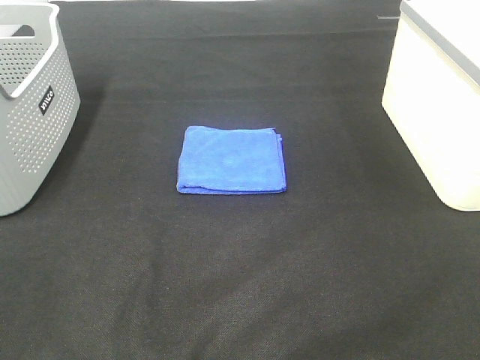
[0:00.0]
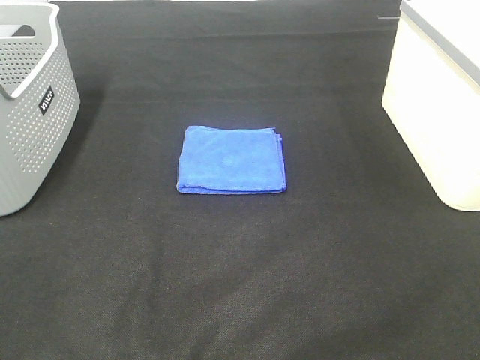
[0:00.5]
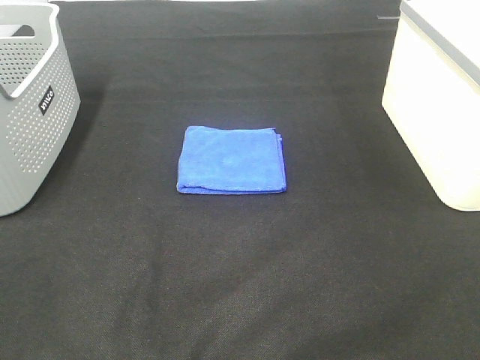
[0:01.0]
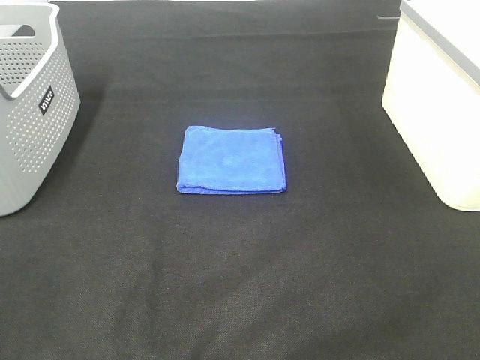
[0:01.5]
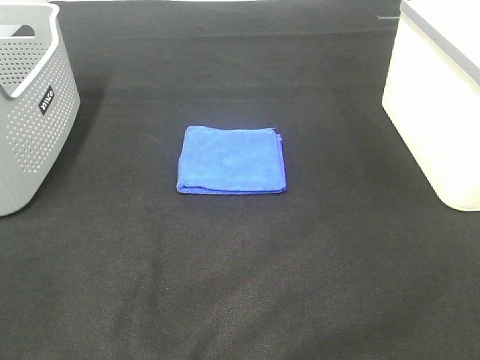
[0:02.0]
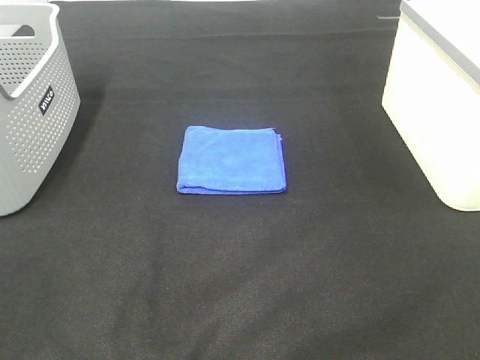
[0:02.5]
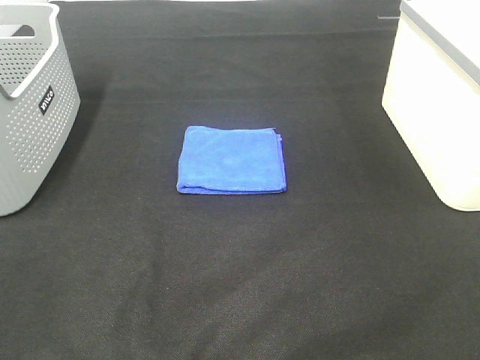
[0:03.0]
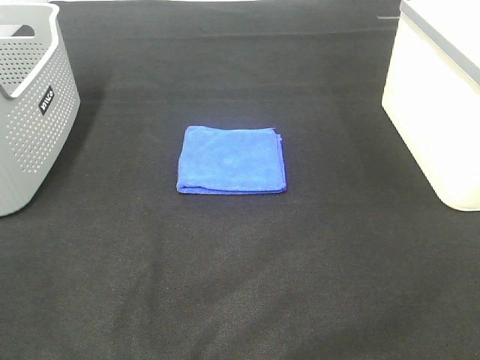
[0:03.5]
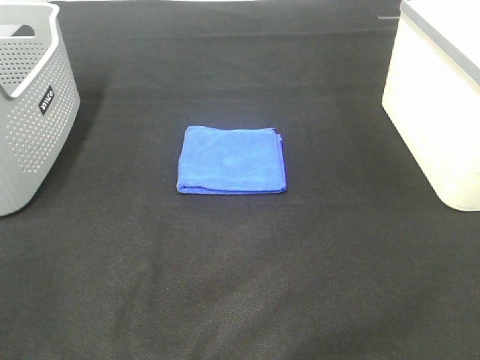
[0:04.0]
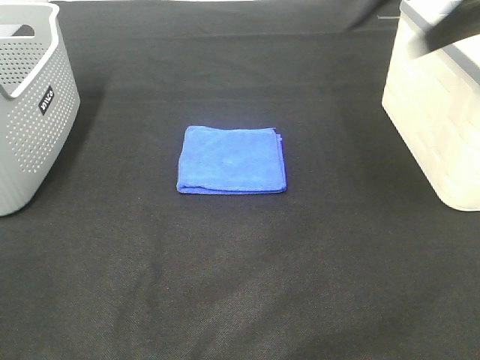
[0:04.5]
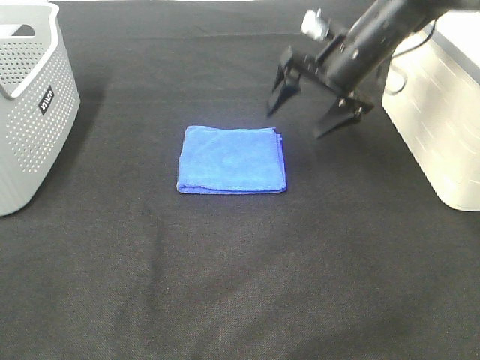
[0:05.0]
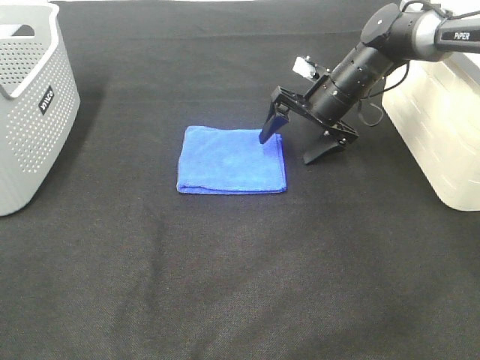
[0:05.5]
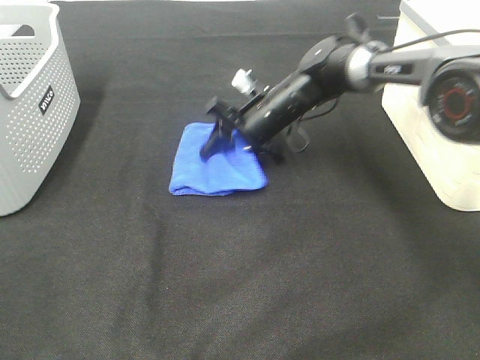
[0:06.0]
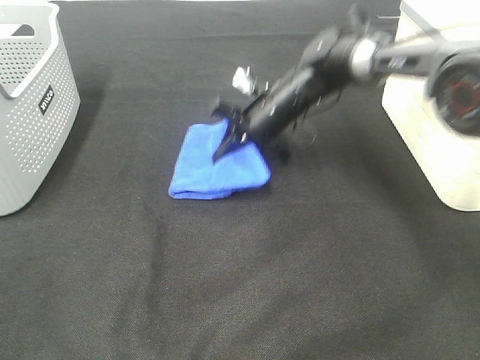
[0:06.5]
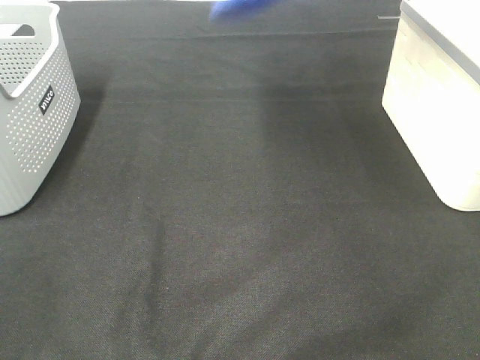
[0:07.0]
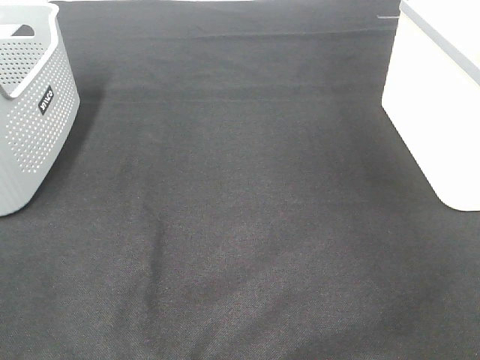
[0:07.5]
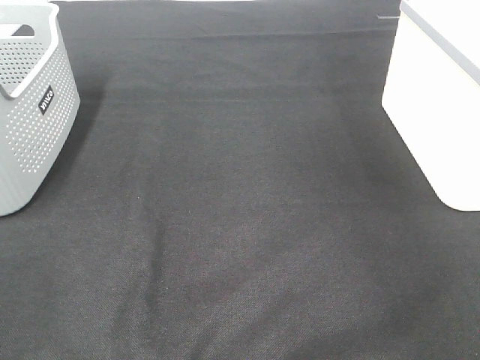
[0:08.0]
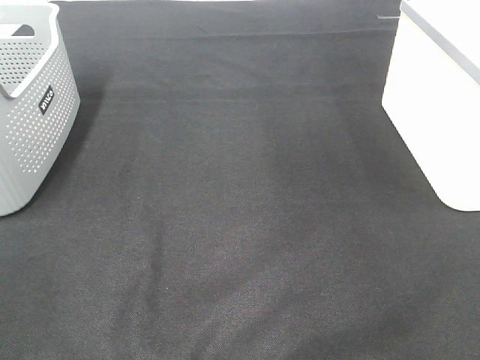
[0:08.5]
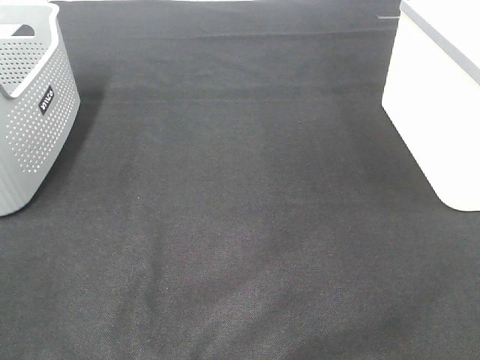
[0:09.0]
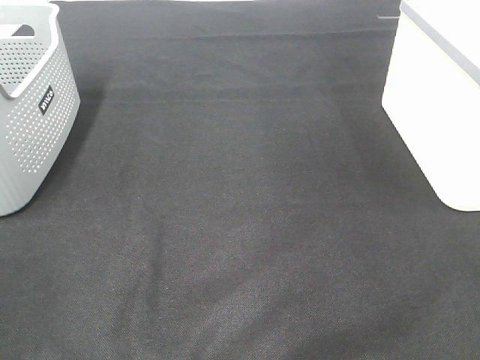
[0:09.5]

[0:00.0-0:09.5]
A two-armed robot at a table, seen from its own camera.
Step, 0:00.0 to 0:06.0: Right hand: grab the folded blue towel.
Step, 0:06.5 to 0:08.0: Right hand: place the blue towel in right basket.
0:00.0 to 0:02.0: The two grippers keep their place.
0:04.0 to 0:05.5: The right gripper goes some 40 cm forward, downward and to the left.
0:05.5 to 0:07.5: The right gripper goes approximately 40 cm upward and to the right, and closes.

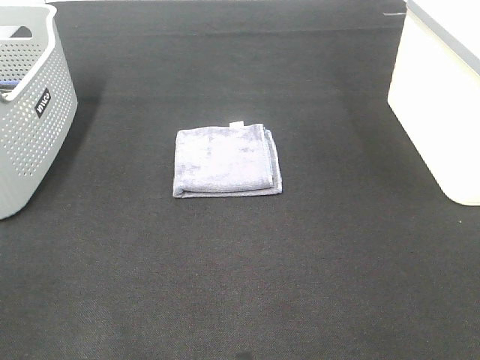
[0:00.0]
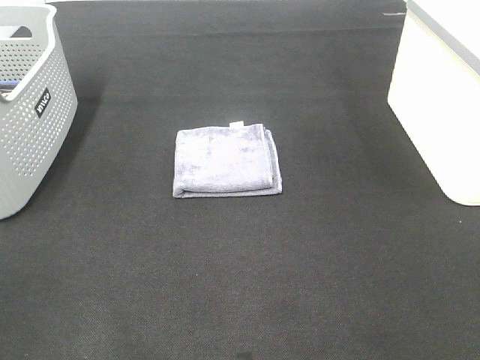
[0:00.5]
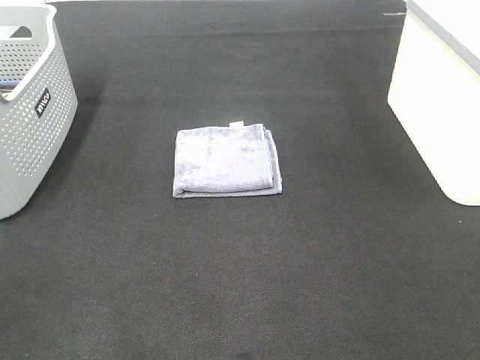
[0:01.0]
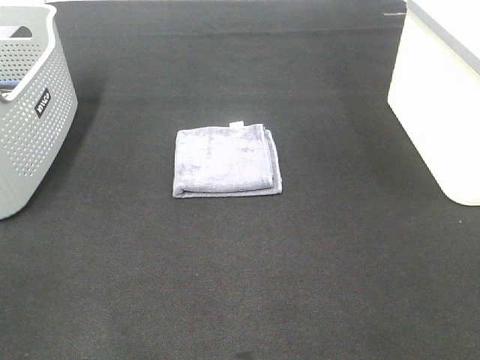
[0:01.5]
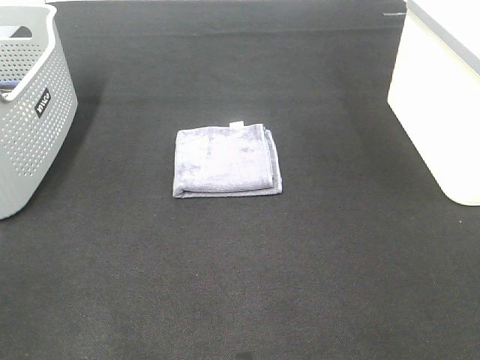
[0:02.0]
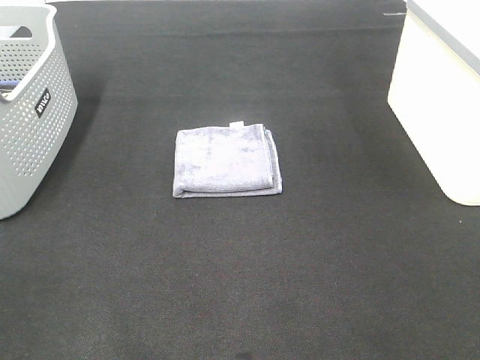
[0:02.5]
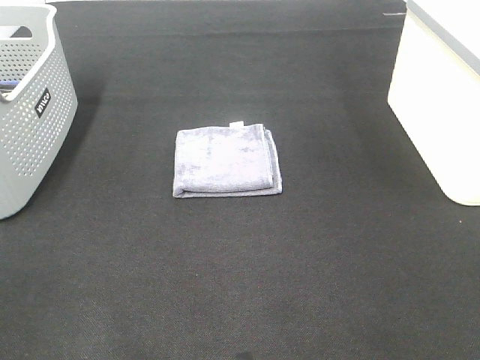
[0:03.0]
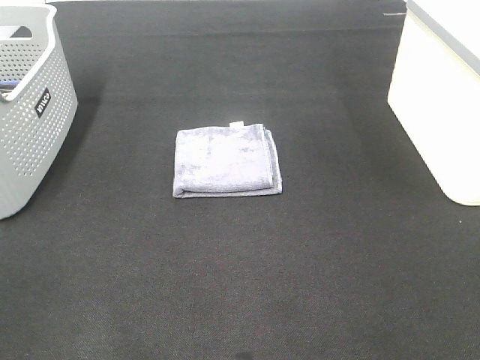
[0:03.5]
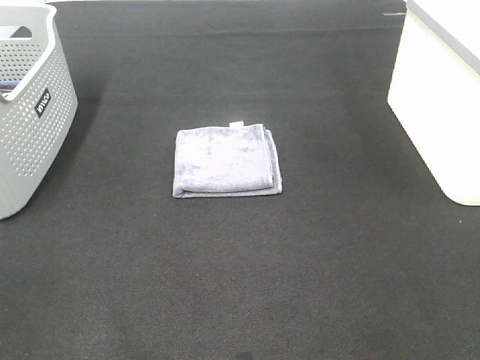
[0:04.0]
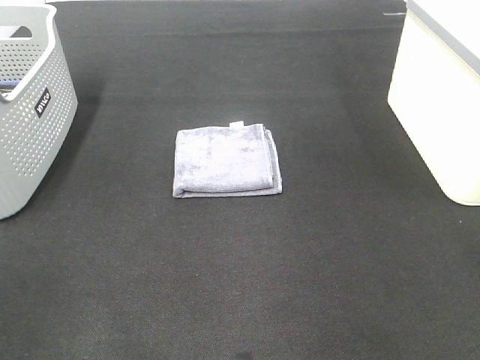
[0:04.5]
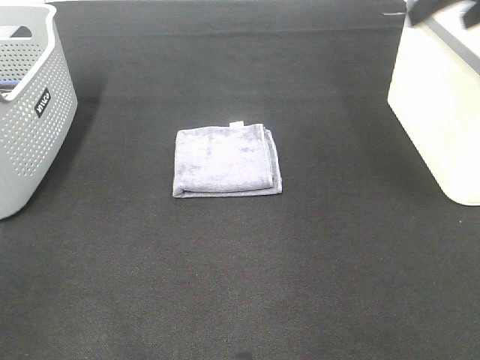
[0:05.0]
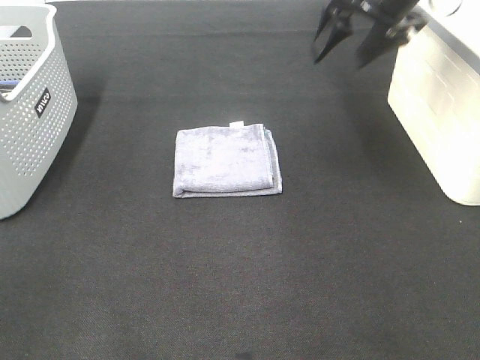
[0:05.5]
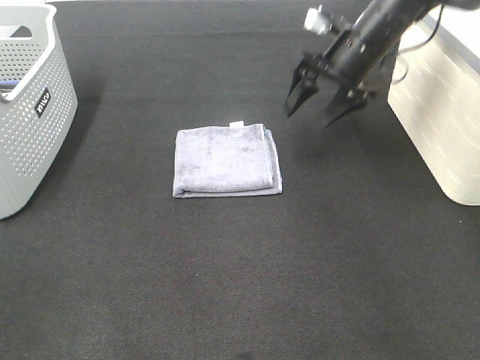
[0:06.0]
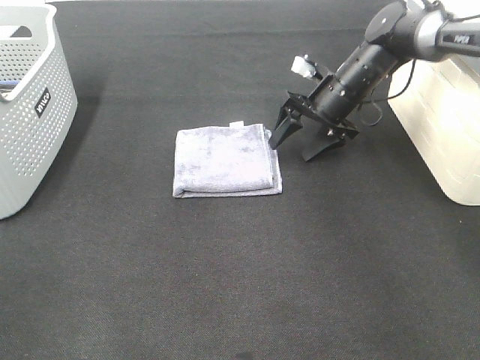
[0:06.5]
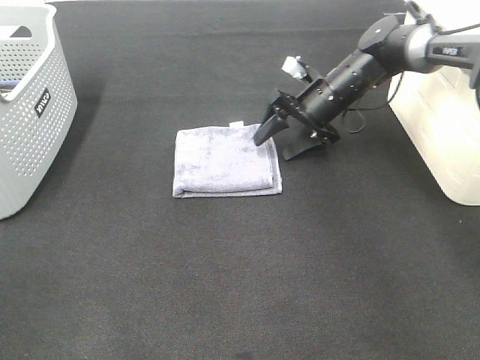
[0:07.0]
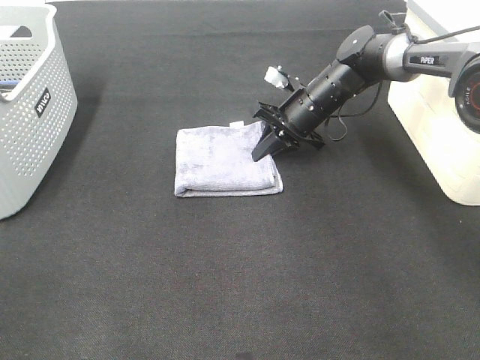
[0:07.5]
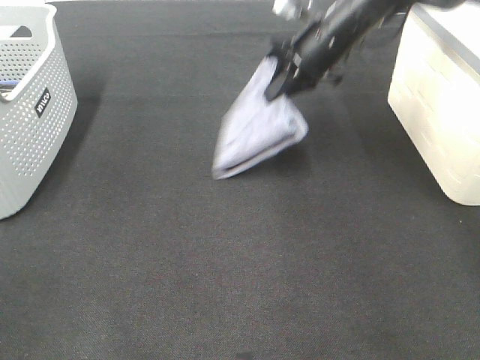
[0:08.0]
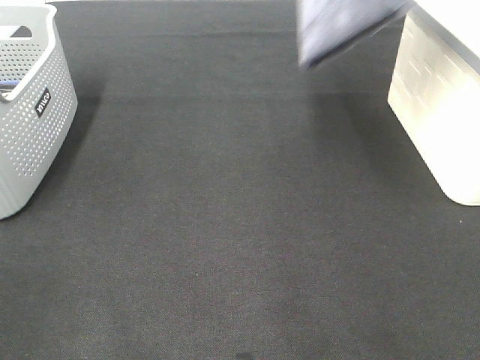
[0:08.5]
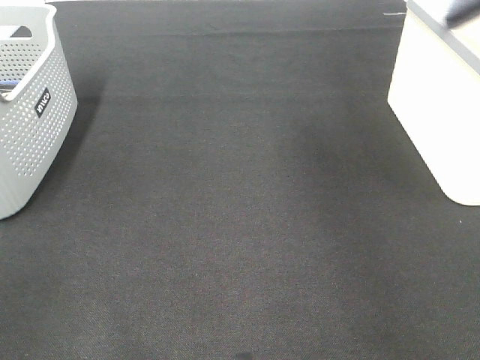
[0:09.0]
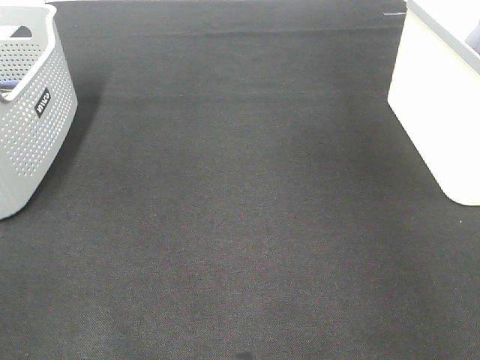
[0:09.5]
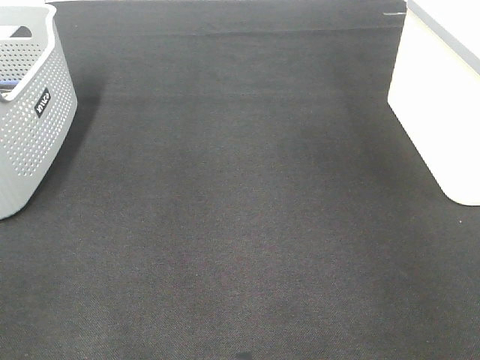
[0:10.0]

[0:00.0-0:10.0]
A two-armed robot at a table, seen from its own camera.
Step, 0:00.0 to 0:07.5: Right hand: grab the folded grey towel.
Step, 0:08.0 to 0:10.0: Right hand: place the grey towel in right basket.
0:00.0 to 0:02.0: Both grippers stay put.
0:04.0 to 0:06.0: The right gripper heads forward, covering roughly 50 cm.
0:06.0 to 0:08.0: The right gripper moves some 10 cm downward and comes back, and closes up.
0:08.0 to 0:10.0: The right gripper goes approximately 30 cm to the right, and opens its fingers.

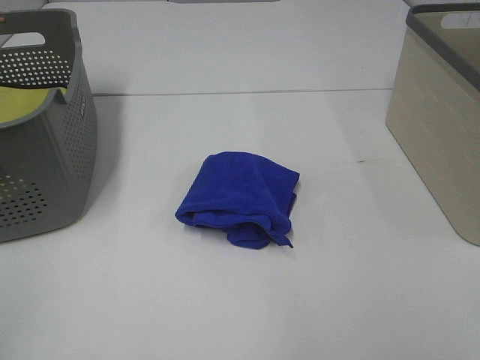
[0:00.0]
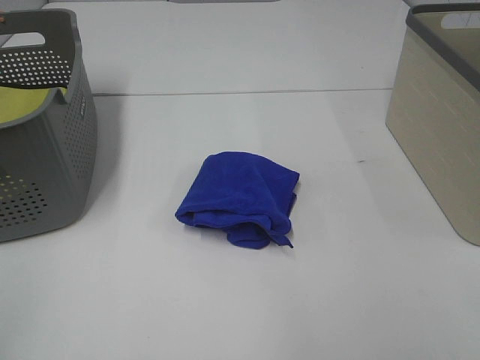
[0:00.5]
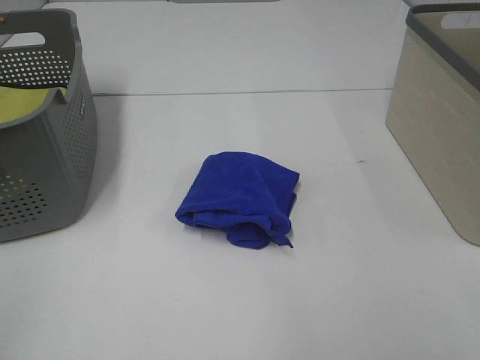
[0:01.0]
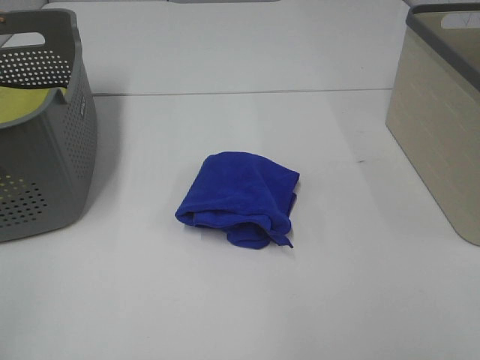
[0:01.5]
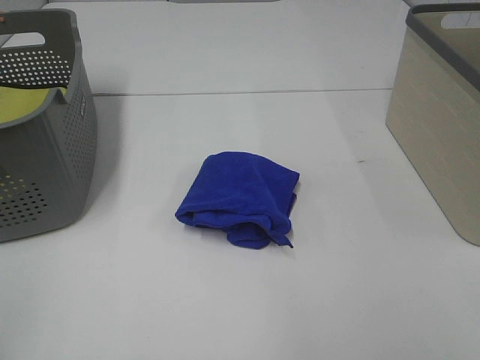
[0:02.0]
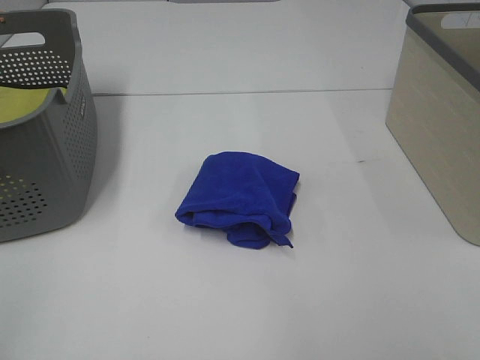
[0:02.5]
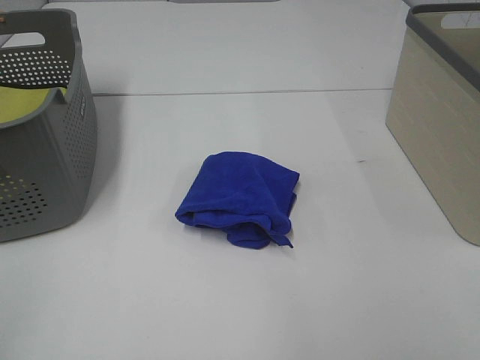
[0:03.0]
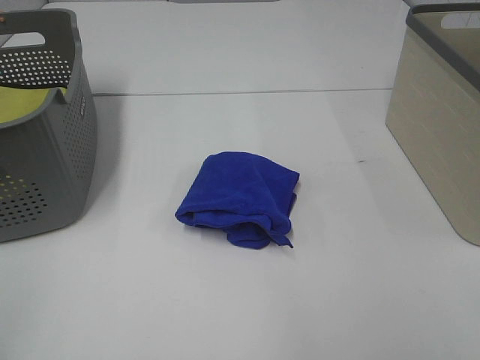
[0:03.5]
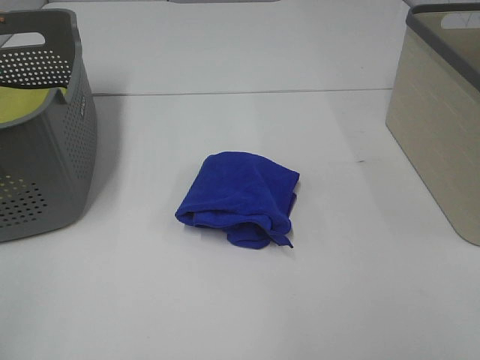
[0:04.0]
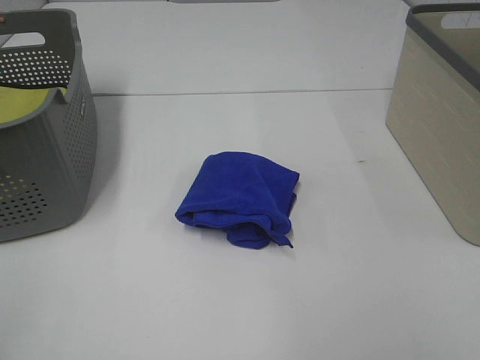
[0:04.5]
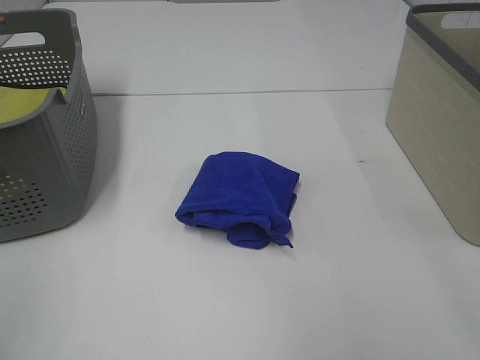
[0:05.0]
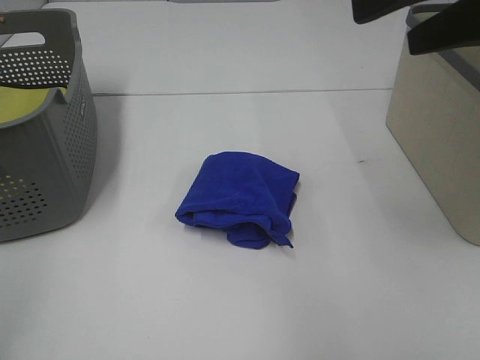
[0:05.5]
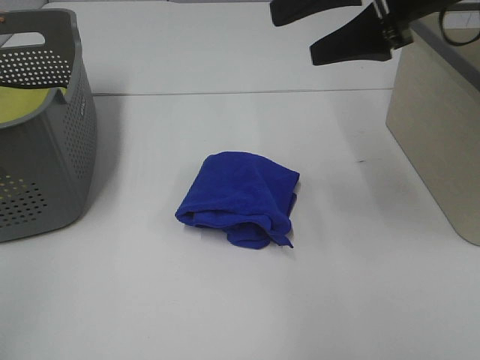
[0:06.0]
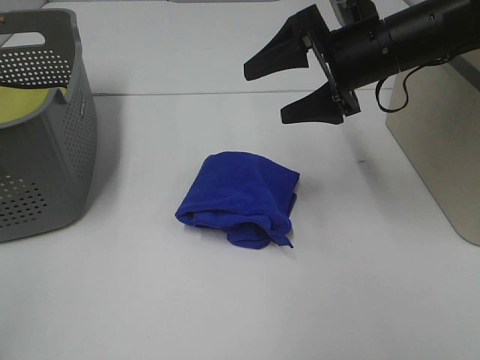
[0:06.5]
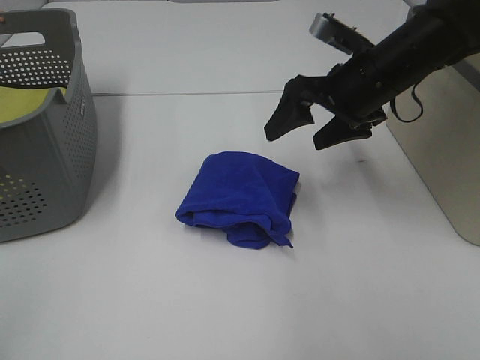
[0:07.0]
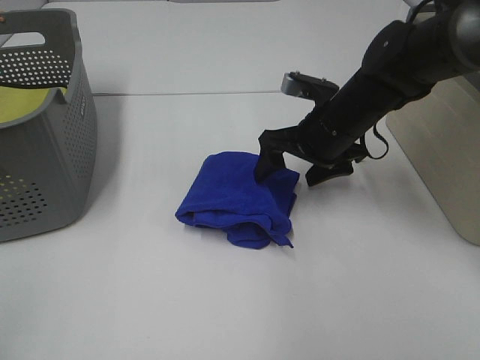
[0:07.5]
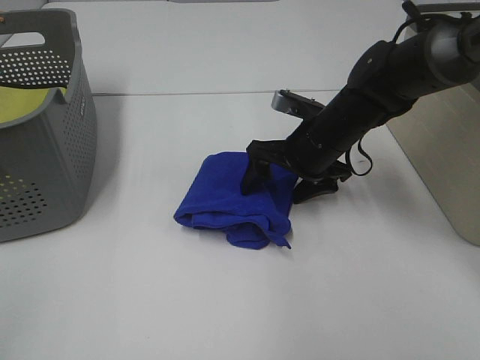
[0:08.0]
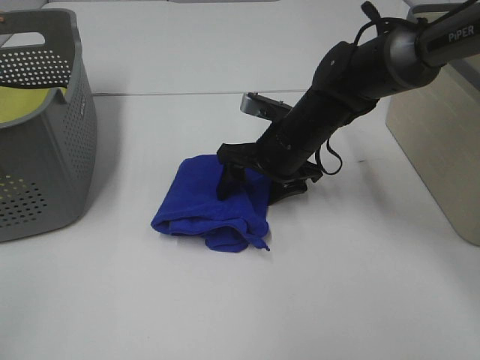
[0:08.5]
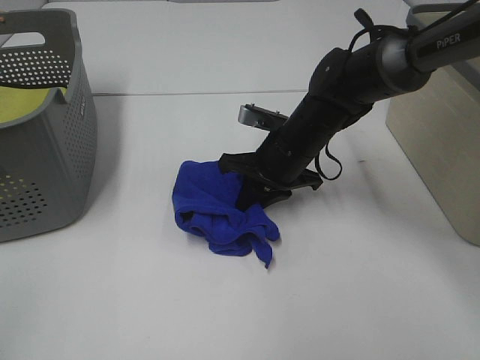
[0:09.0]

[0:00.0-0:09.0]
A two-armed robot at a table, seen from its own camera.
0:00.0 to 0:02.0: Both grippers stay put.
0:04.5 to 0:07.0: The right gripper heads forward and to the left, covering about 35 cm.
0:07.0 to 0:09.0: The right gripper is displaced downward and to the left by roughly 15 cm, and closes its fingers.
